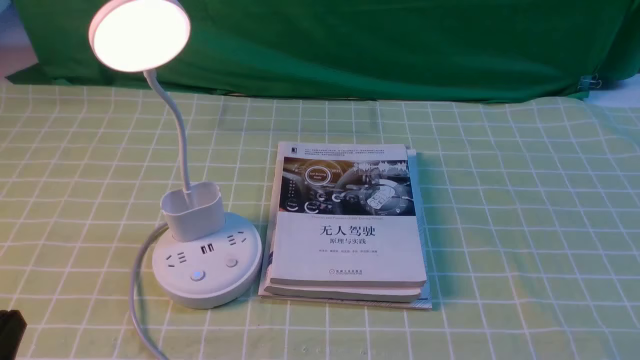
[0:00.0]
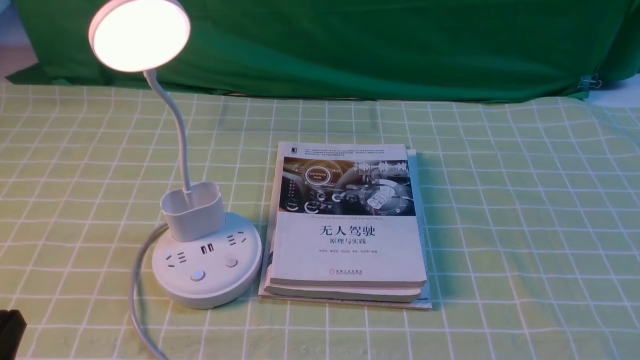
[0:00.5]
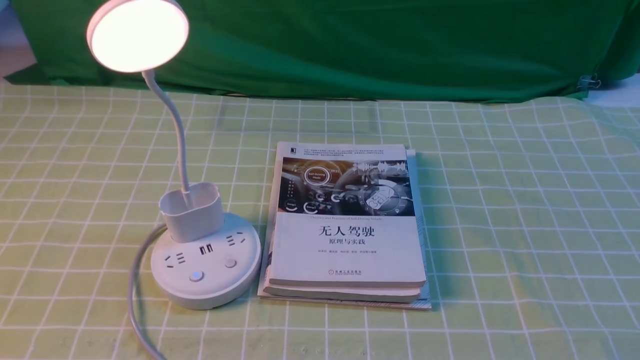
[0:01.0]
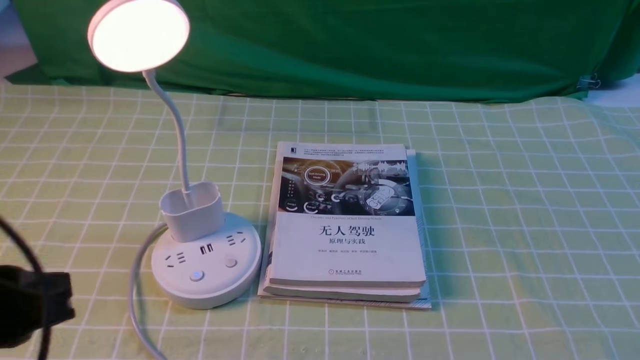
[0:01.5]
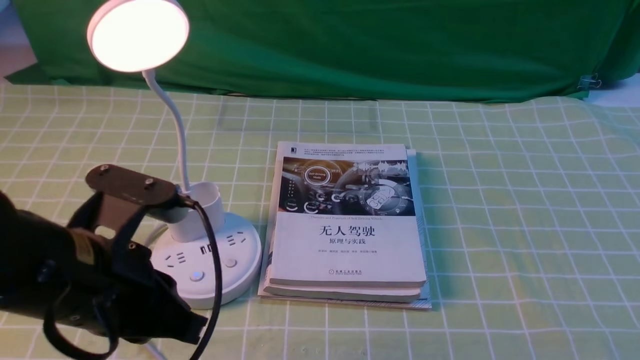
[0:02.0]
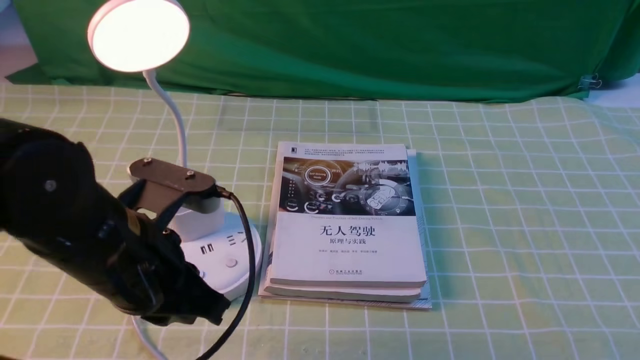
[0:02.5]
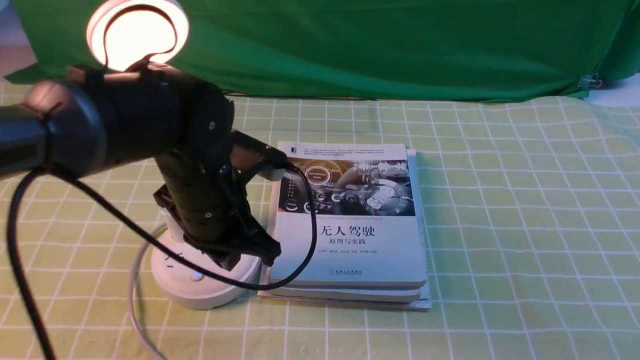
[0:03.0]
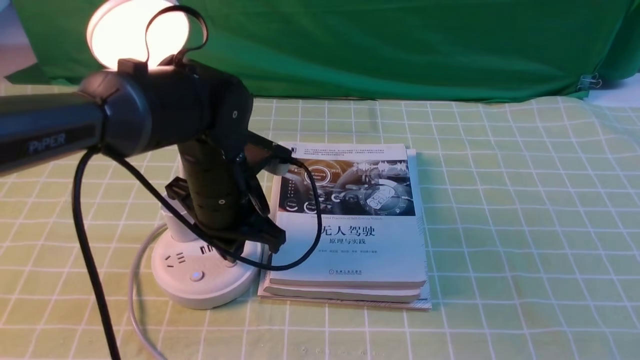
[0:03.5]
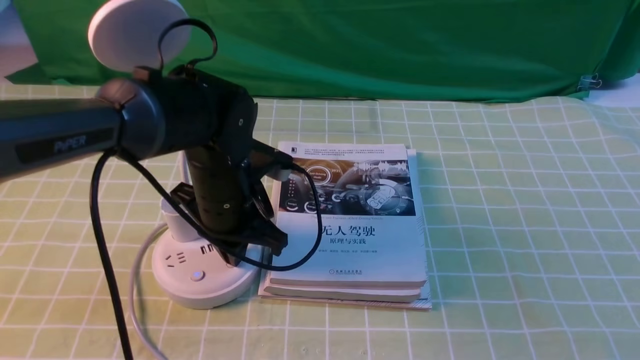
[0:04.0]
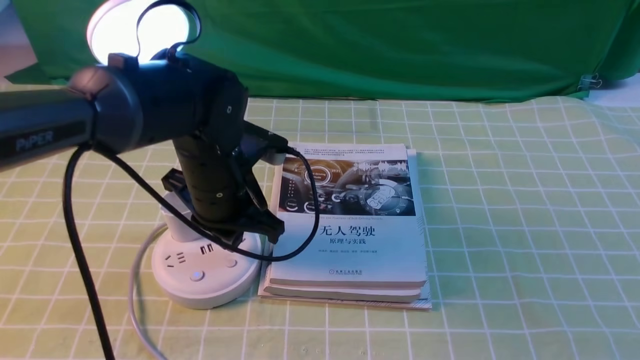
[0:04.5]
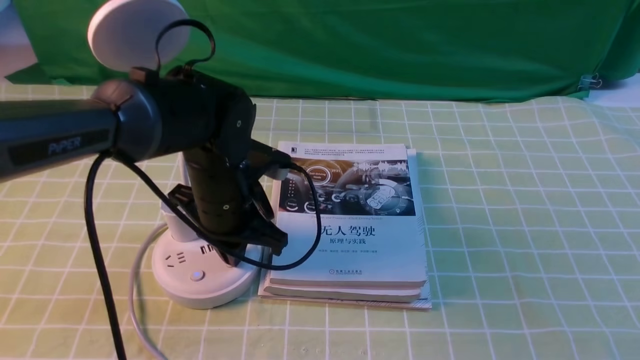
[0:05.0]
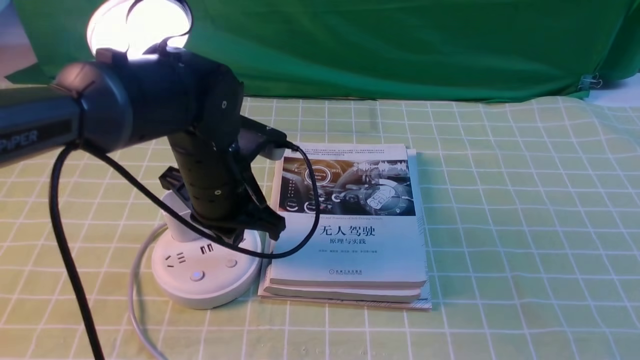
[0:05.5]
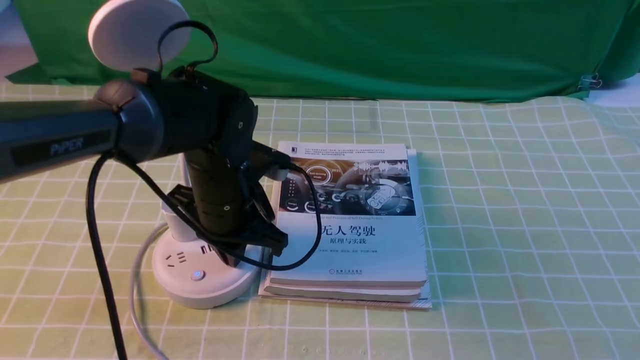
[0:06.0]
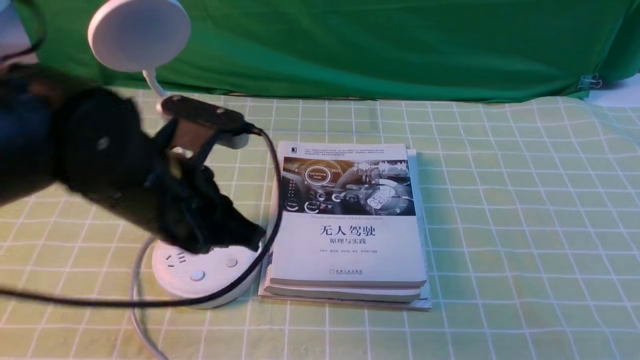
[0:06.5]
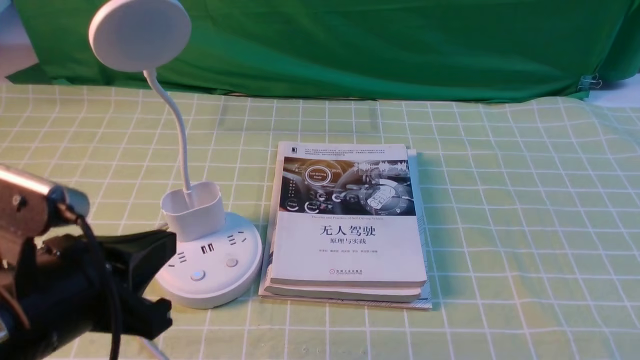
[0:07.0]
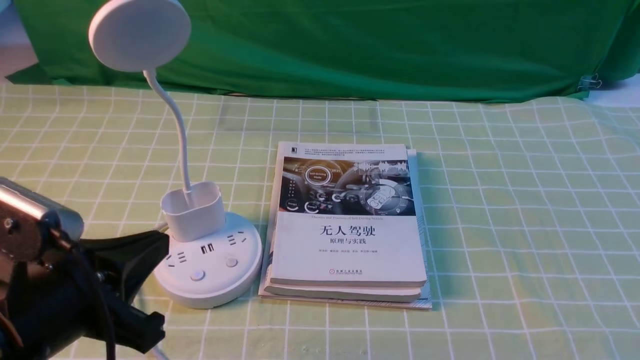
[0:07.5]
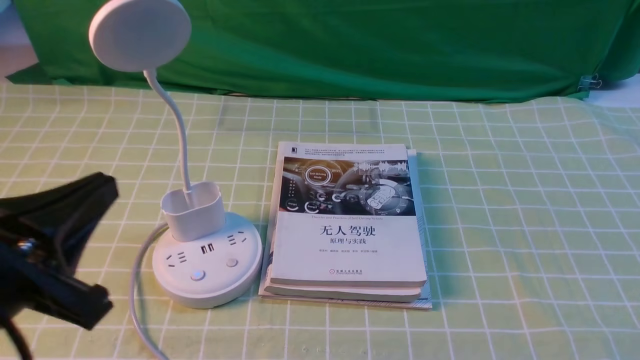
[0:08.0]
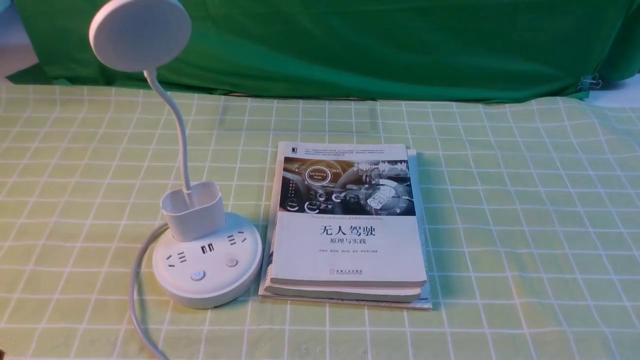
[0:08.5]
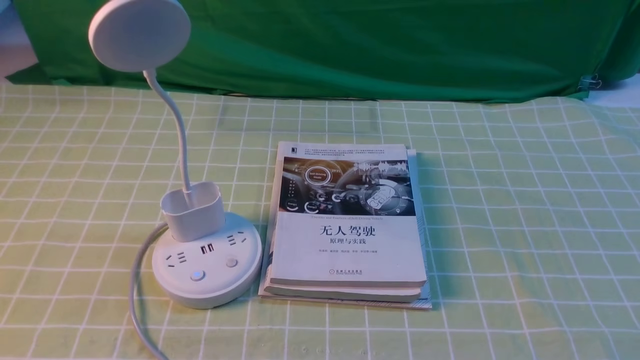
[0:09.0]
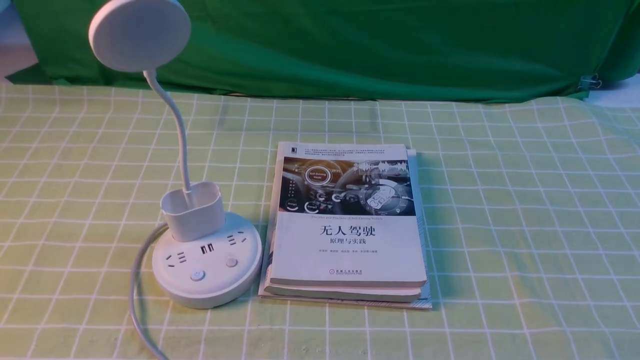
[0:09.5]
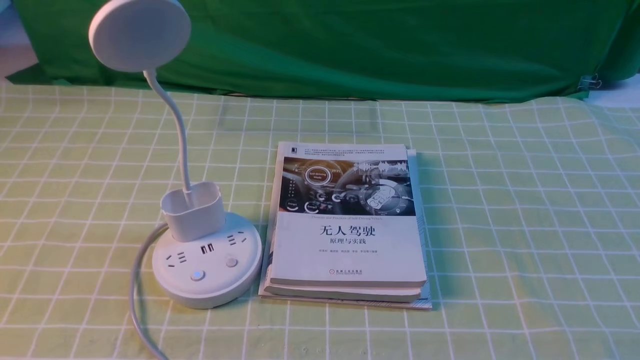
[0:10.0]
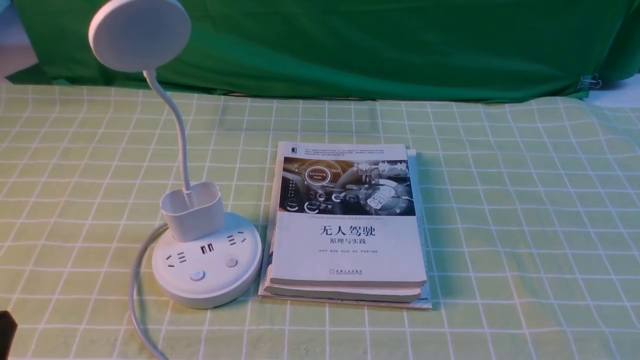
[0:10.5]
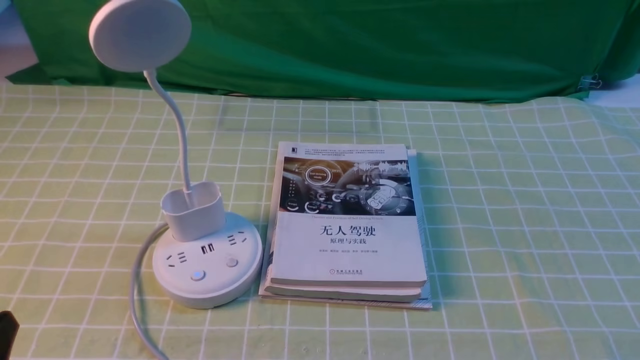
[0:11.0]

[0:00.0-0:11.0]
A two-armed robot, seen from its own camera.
Task of the whole recording: turn off the desk lamp on the green coffee tablecloth by hand.
Step, 0:00.0 to 0:06.0: use the left arm to press the button switch on the lamp holder.
0:00.0 to 0:02.0: The left gripper is displaced forward, to the right and upward by about 15 cm.
0:02.0 to 0:03.5: The left gripper heads forward, downward and to the right, covering about 20 cm.
0:03.5 to 0:05.5: The grippers move only a little.
0:05.5 to 0:07.5: The left gripper heads backward and to the left, covering about 20 cm.
0:07.5 to 0:09.0: The left gripper is displaced backward, to the left and downward by about 15 cm.

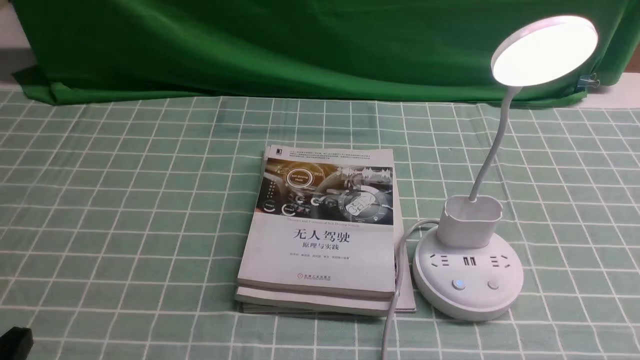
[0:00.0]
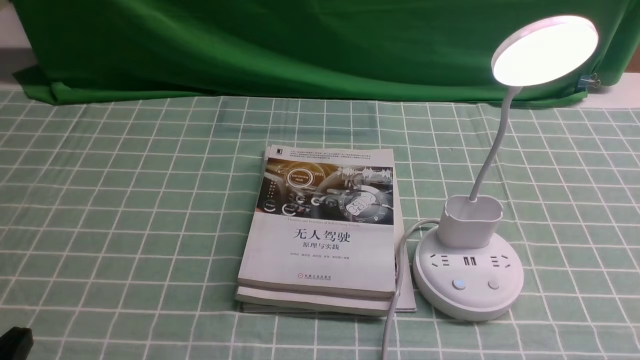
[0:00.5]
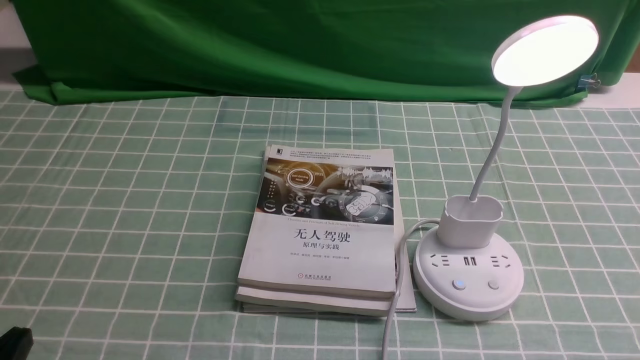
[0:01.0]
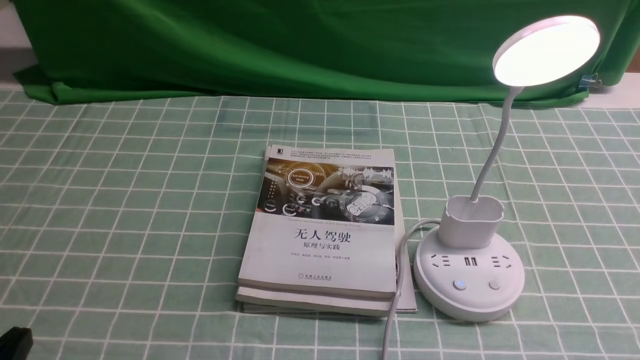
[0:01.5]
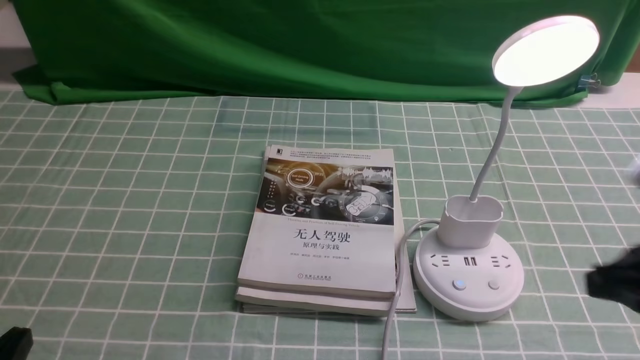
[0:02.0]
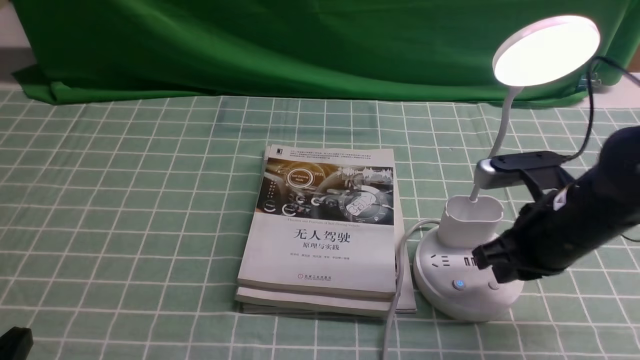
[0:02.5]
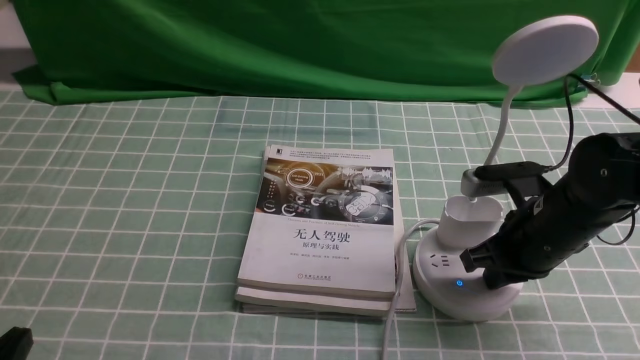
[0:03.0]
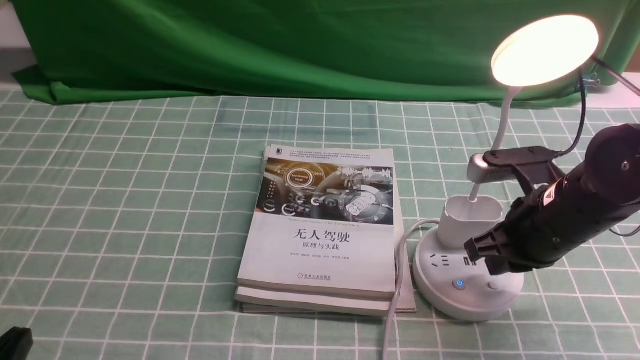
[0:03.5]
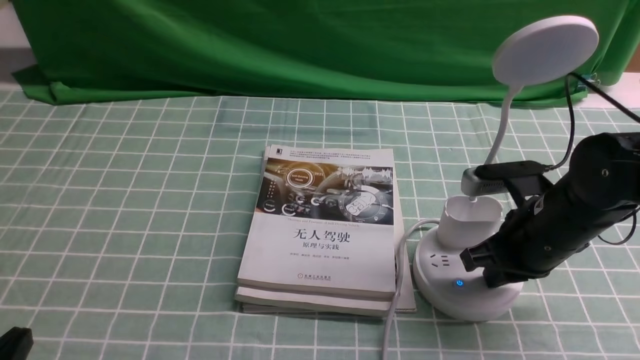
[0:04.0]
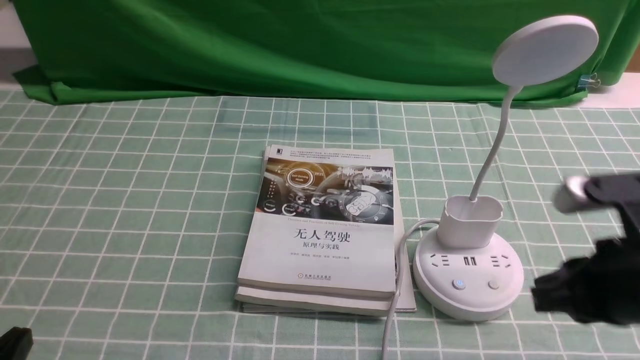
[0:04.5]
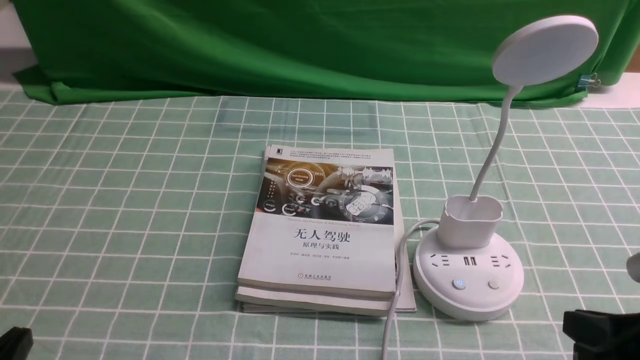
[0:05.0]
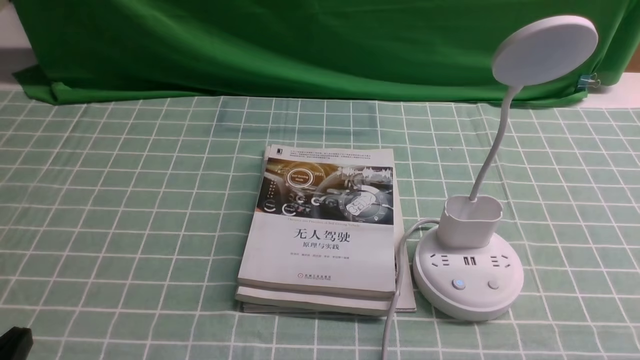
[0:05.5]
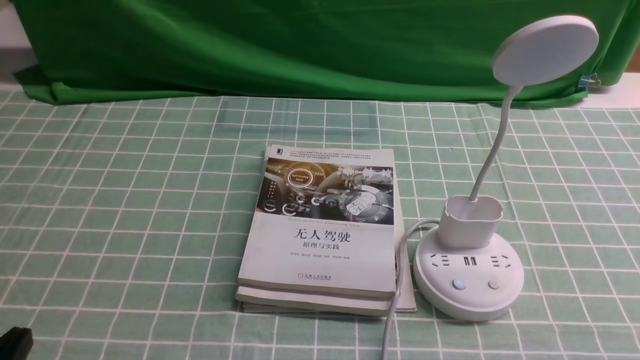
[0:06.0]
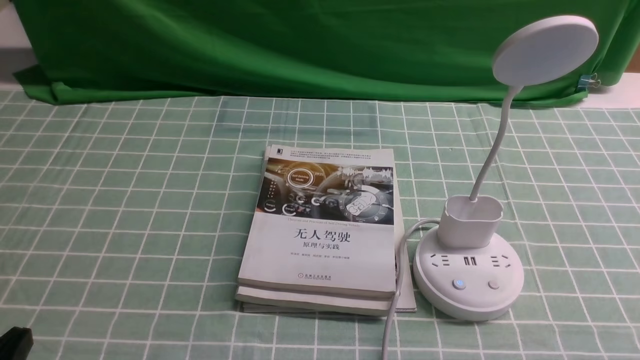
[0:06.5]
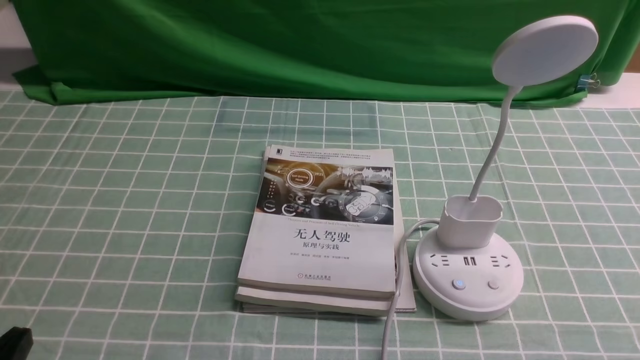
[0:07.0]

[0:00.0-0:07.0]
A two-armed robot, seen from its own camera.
Task of the whole recording: turn off the desk lamp on the blue coffee tablecloth by hand.
Step, 0:00.0 to 0:04.0: use the right arm to press the button switch on the lamp holder.
0:00.0 to 0:02.0: The right gripper goes roughly 15 cm forward and upward, and closes up.
0:02.0 to 0:03.5: The right gripper goes roughly 15 cm forward, downward and to the left.
0:03.5 to 0:05.0: The right gripper moves backward, about 15 cm.
0:05.0 to 0:07.0: The right gripper goes approximately 5 cm backward.

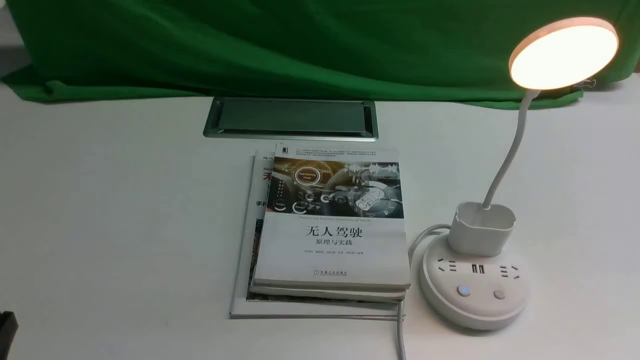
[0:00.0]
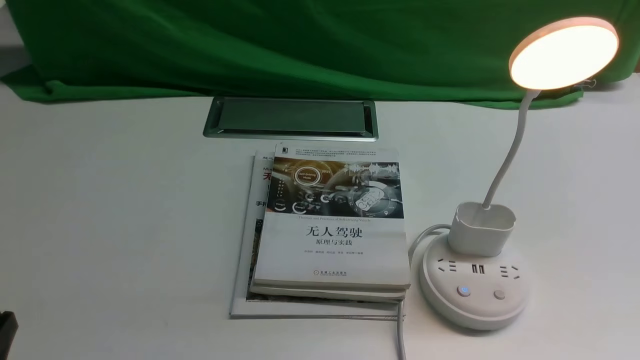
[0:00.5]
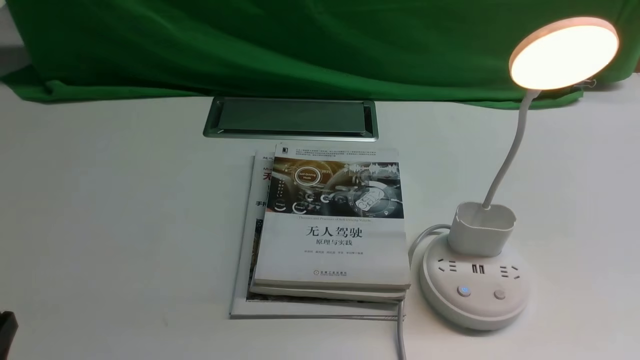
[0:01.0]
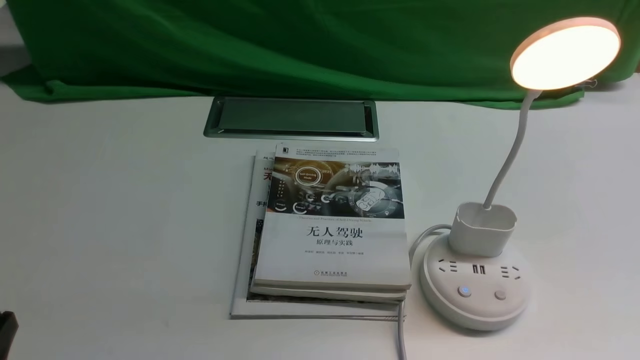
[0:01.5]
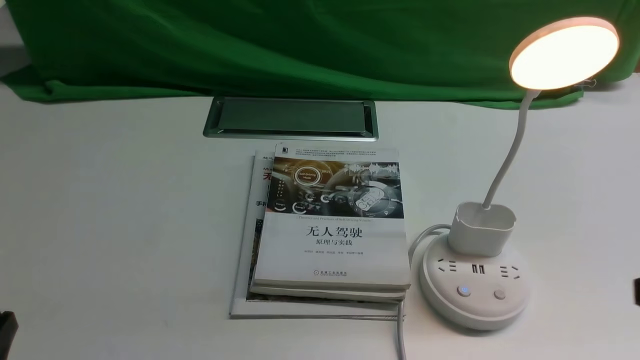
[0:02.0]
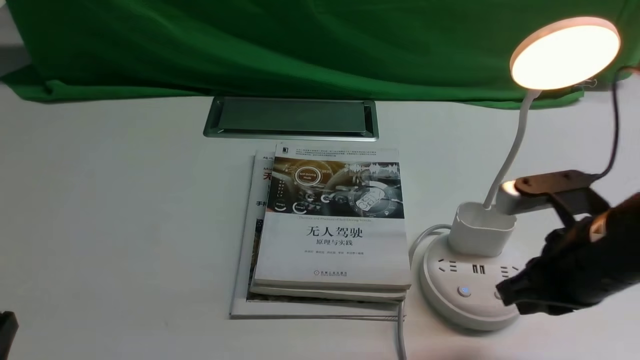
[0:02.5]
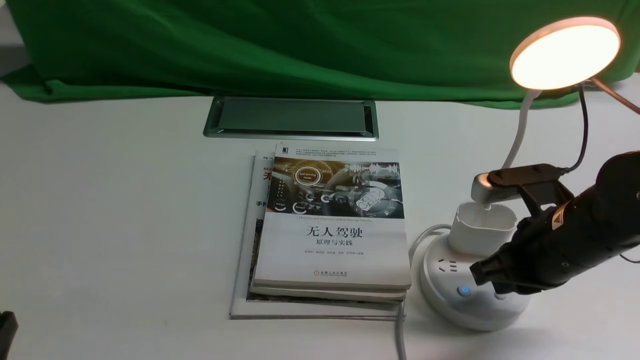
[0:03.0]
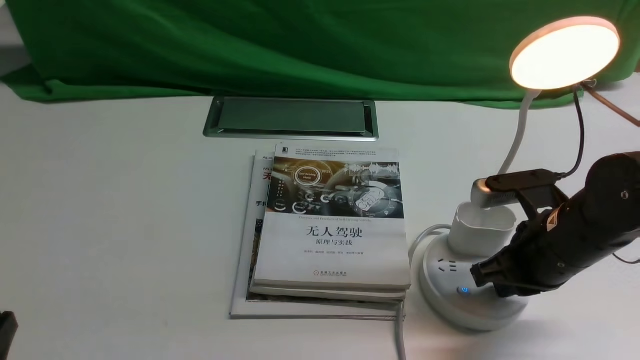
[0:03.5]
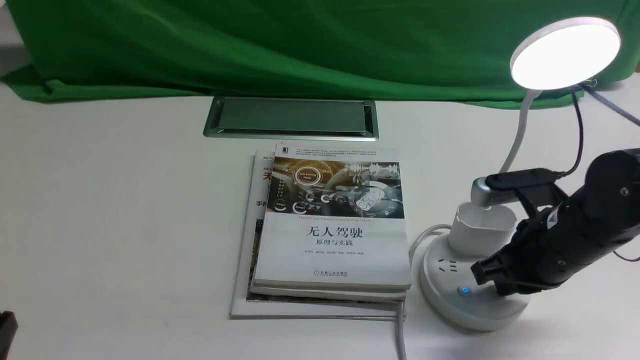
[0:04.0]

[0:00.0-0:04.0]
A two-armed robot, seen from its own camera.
Task of the whole recording: turn off the desk lamp on the white desktop by hand.
0:02.0 to 0:04.0: The right gripper heads forward, downward and to the left, covering approximately 20 cm, and closes up.
